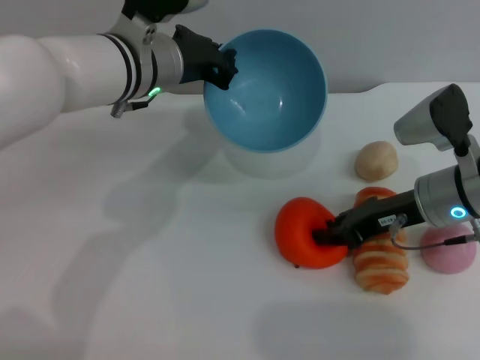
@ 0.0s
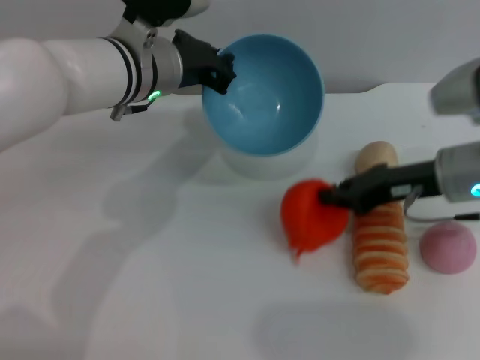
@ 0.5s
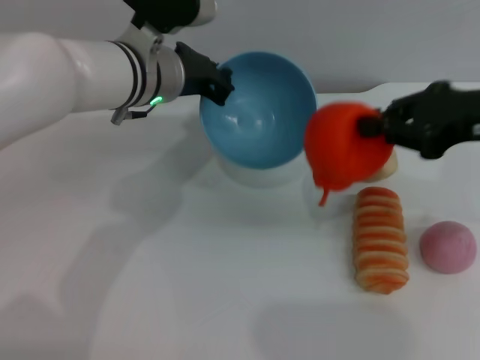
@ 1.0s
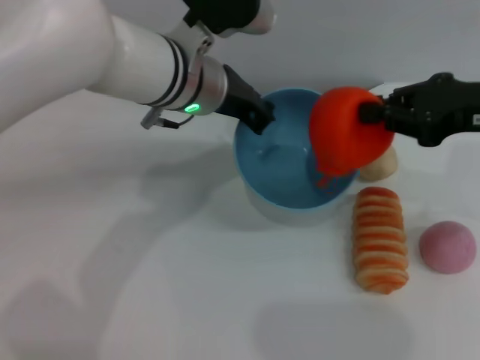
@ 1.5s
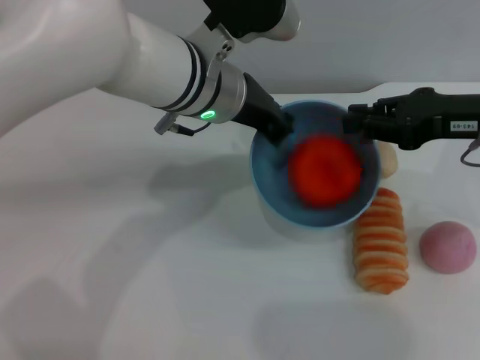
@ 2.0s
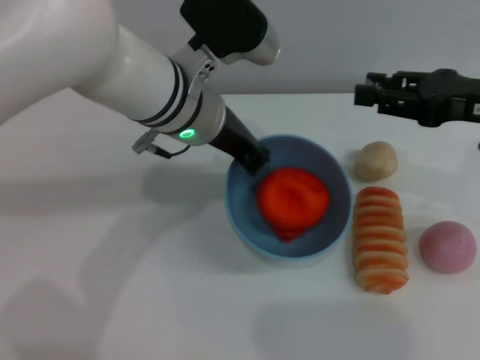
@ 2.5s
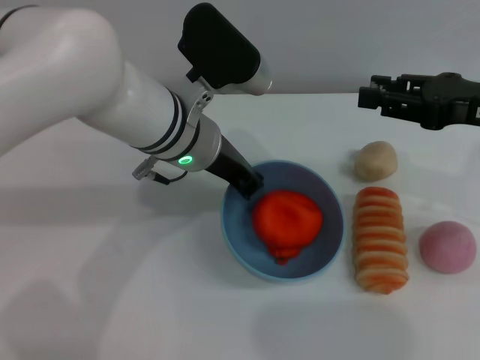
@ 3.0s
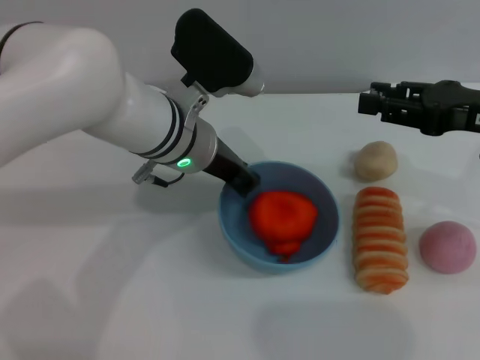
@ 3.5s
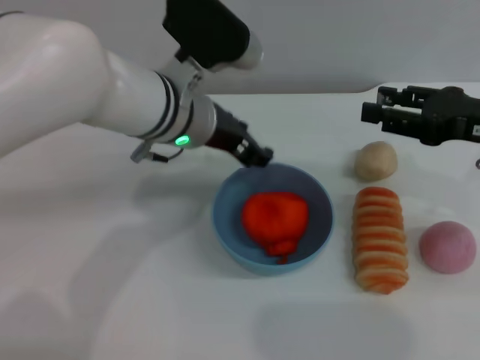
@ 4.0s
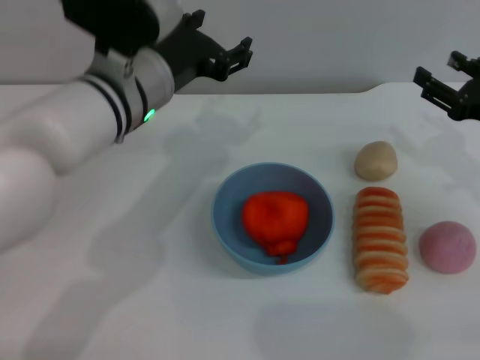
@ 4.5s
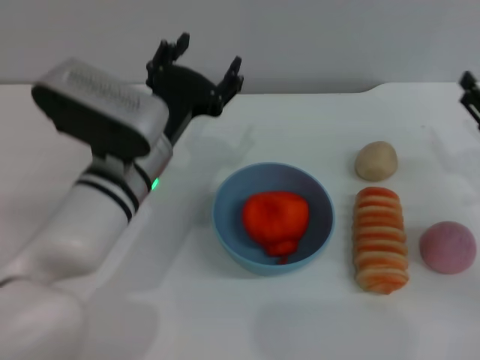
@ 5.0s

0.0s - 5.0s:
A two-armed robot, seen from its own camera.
Task of the whole recording: put the orange into the blue bowl and pour it out repeatedly.
Step, 1.0s - 2.0s: Place the orange into the bowl.
Step, 2.5s - 4.0s: Place the bowl on the table.
0.0s - 2.5s: The left gripper shifts by approximately 5 cm. Meanwhile the right gripper shifts roughly 10 cm upward and to the right.
2.5s - 5.0s: The left gripper is displaced downward and backward by approximately 10 cm, and opens its fingers, while the right gripper travels downward by roughly 15 cm, and opens up.
